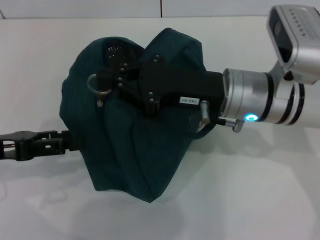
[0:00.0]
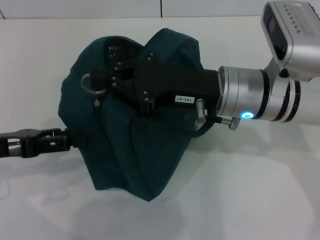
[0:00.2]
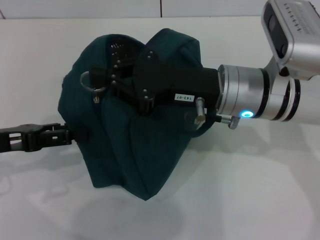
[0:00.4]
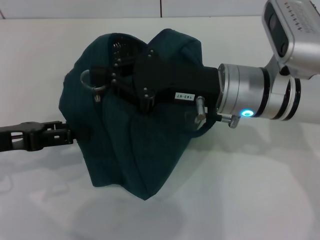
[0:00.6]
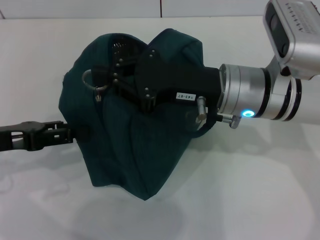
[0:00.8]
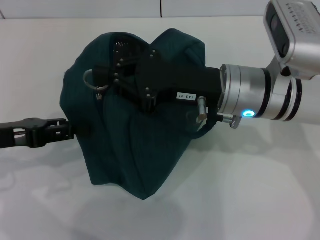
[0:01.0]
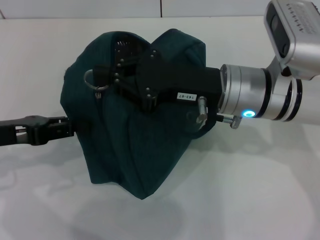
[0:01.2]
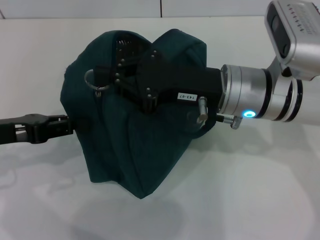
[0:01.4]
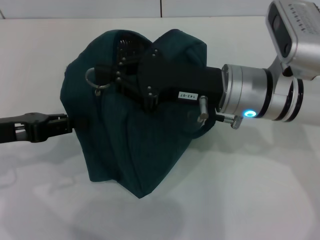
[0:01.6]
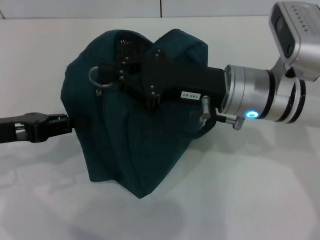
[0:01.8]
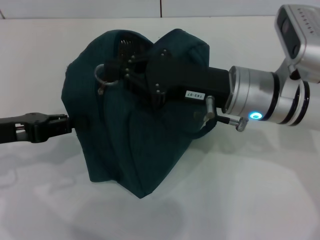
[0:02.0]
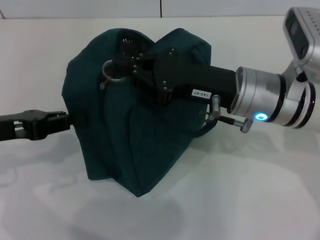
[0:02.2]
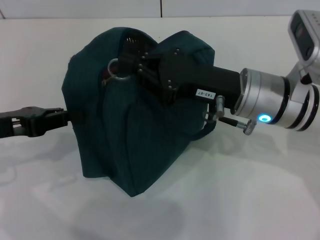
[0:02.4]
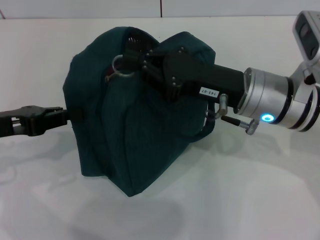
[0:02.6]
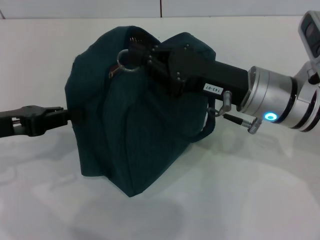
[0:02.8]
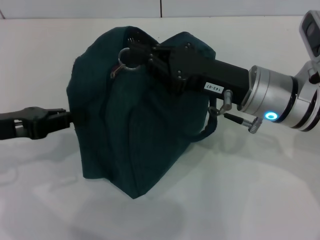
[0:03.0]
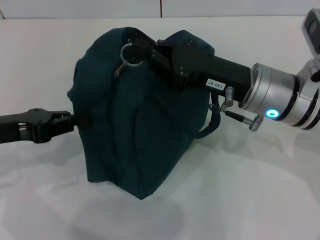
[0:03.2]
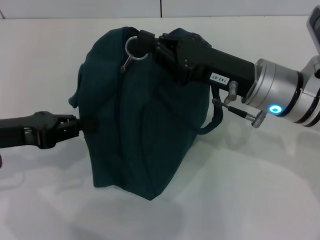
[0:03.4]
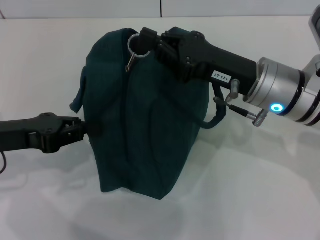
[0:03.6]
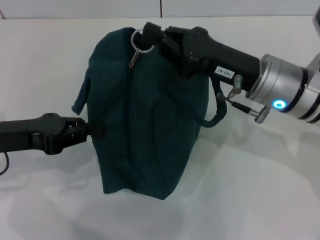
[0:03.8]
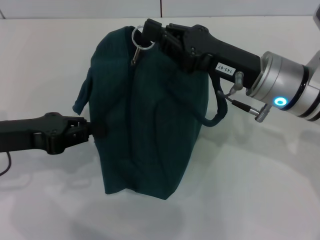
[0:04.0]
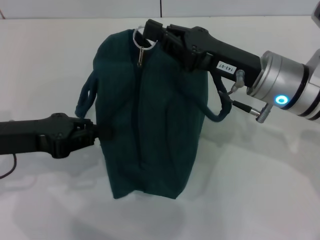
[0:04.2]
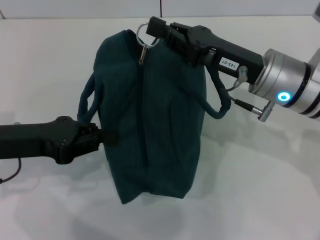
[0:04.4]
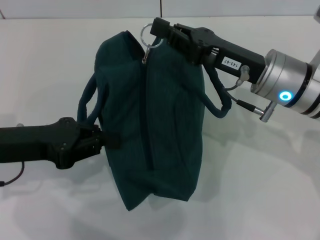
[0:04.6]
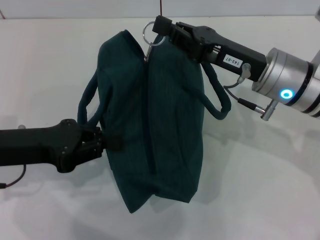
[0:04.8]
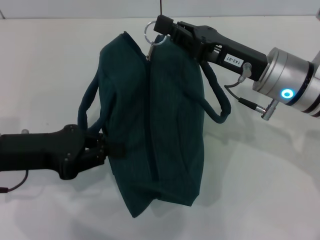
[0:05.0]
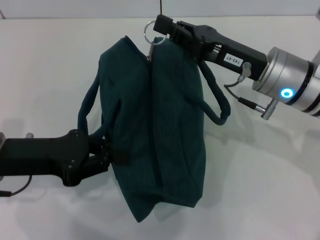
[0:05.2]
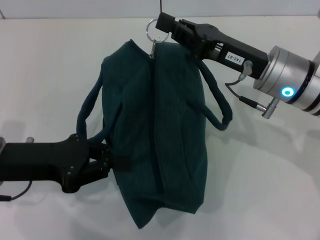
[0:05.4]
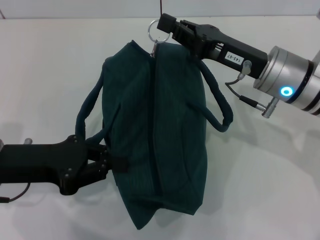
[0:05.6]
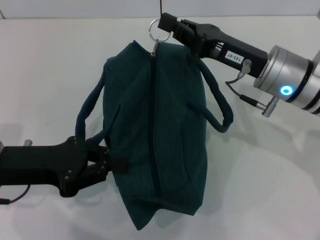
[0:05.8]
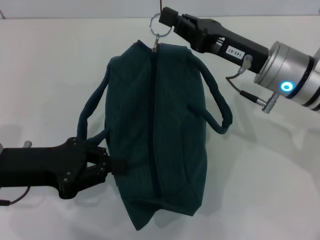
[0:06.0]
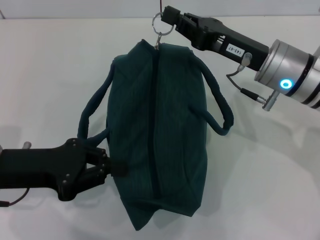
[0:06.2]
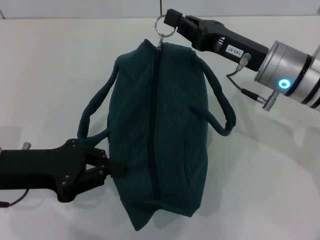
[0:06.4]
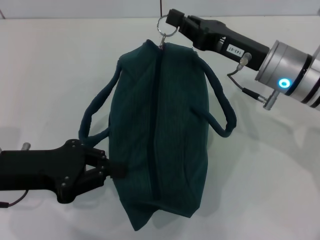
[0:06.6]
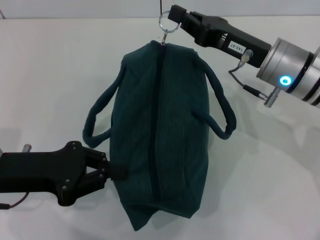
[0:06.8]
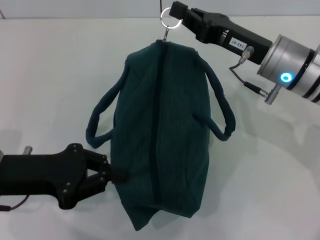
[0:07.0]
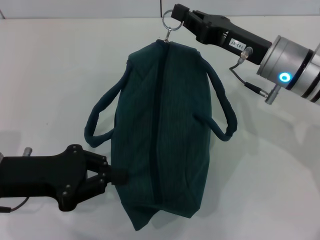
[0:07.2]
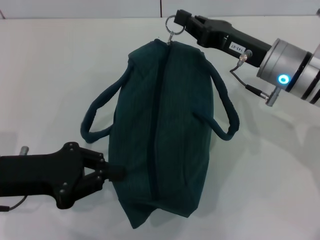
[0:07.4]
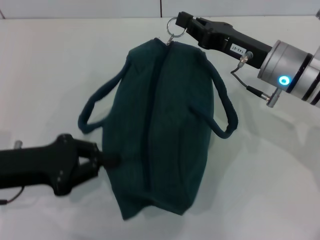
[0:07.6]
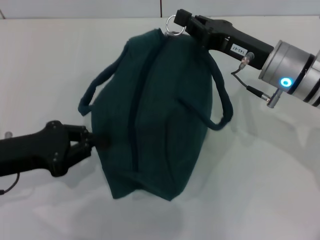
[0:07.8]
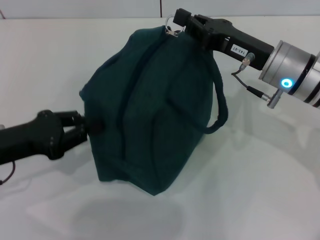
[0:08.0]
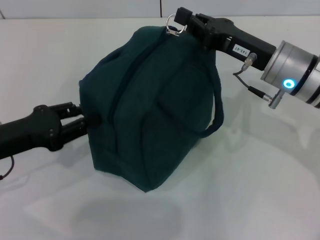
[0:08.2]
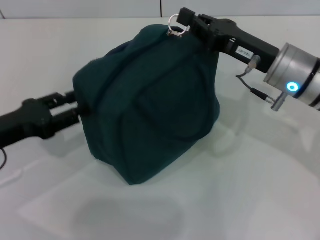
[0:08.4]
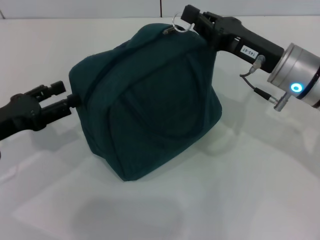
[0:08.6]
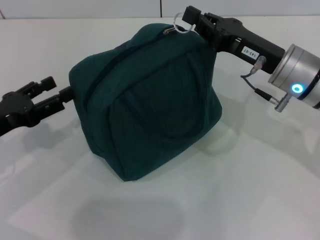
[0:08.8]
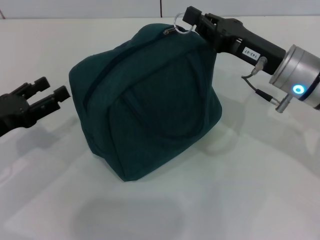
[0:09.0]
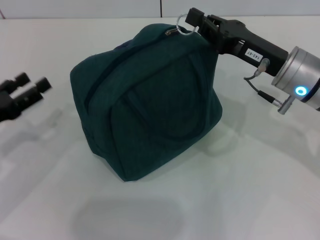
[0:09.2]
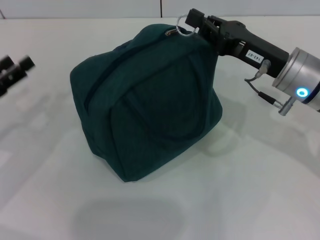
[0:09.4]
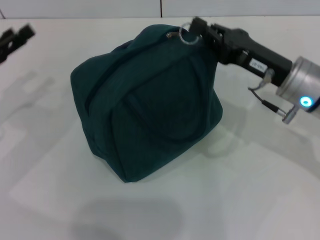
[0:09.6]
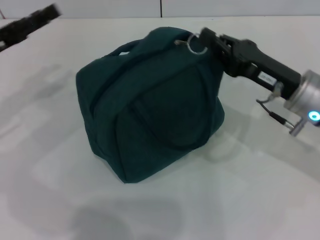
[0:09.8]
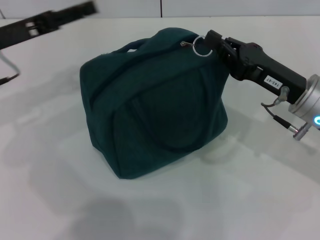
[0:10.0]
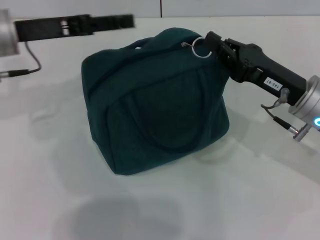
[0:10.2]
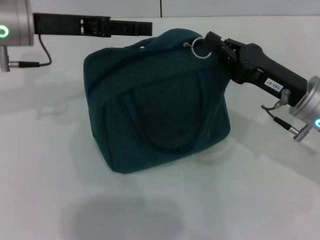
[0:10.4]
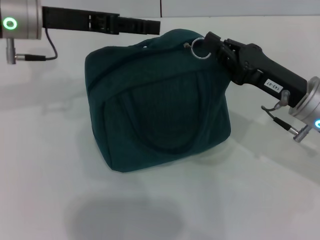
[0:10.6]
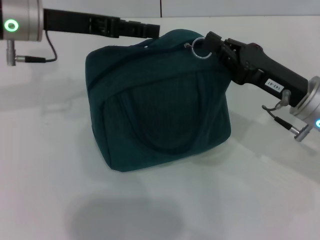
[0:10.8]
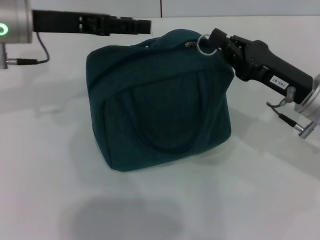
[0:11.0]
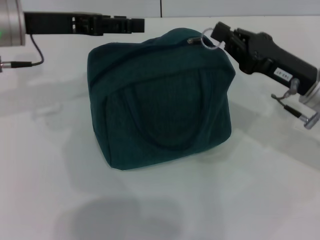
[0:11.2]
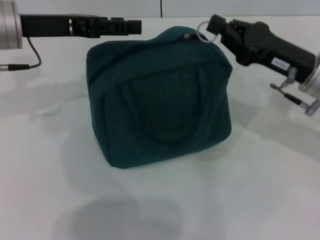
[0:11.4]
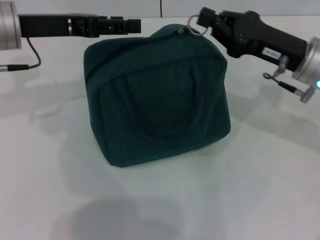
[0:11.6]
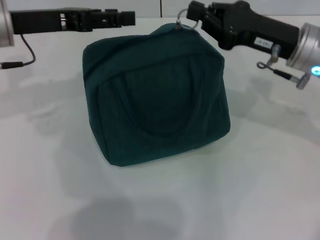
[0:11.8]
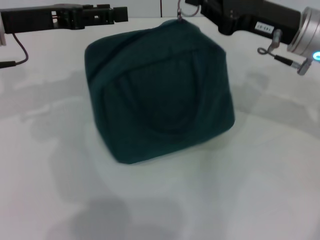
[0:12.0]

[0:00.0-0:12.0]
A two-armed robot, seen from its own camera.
0:00.0 to 0:01.6: The left gripper closes.
0:01.6 to 0:03.0: There are only small adjustments of the grippers.
0:06.0 to 0:07.6: The grippers stay close to where they were, moving slightly.
0:07.6 to 0:09.0: The left gripper changes place by approximately 5 cm, and opens its fingers.
0:09.0 to 0:10.4: The left gripper shifts approximately 20 cm forward, upward and to the right.
0:10.4 to 0:12.0: The right gripper travels forward and upward by approximately 10 cm.

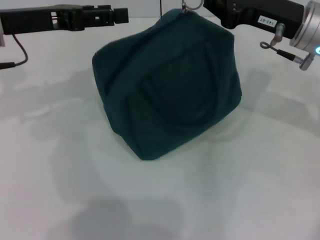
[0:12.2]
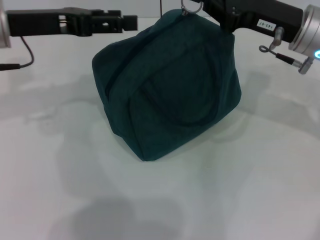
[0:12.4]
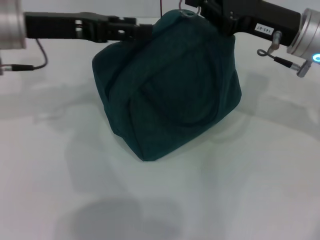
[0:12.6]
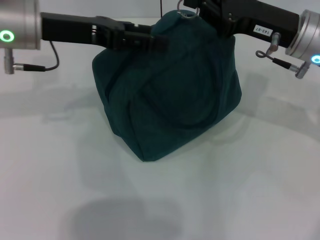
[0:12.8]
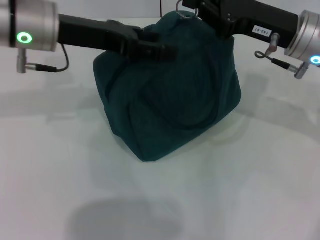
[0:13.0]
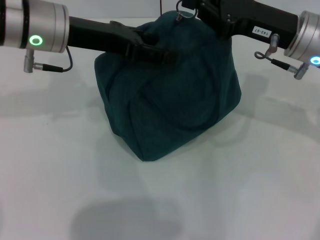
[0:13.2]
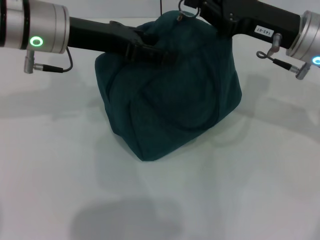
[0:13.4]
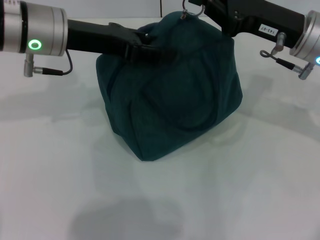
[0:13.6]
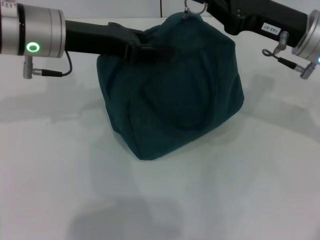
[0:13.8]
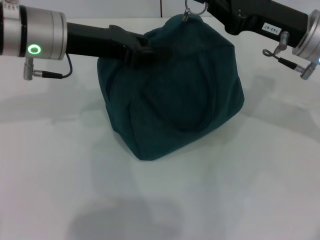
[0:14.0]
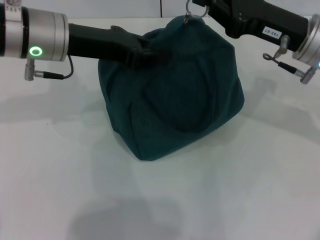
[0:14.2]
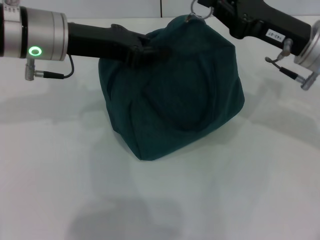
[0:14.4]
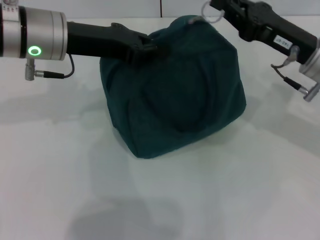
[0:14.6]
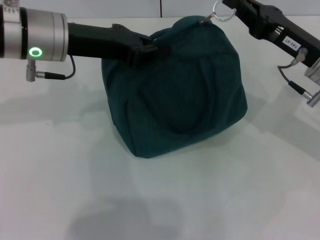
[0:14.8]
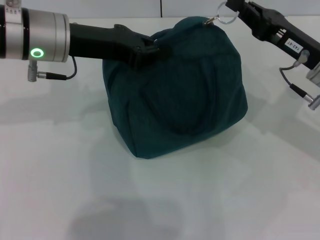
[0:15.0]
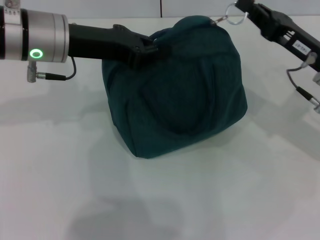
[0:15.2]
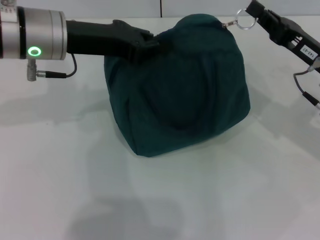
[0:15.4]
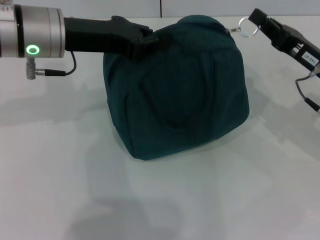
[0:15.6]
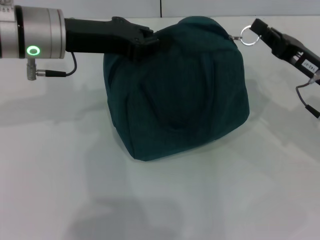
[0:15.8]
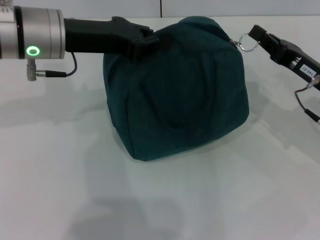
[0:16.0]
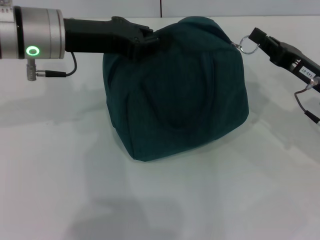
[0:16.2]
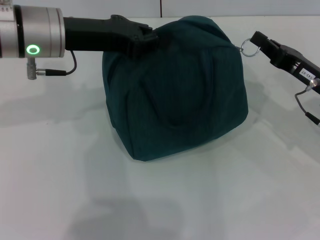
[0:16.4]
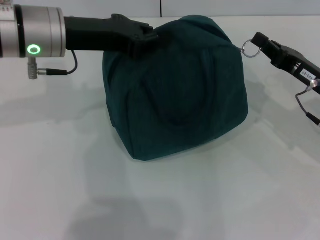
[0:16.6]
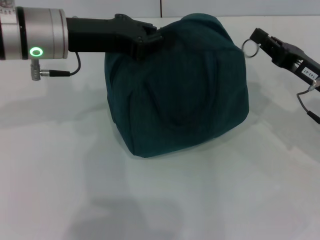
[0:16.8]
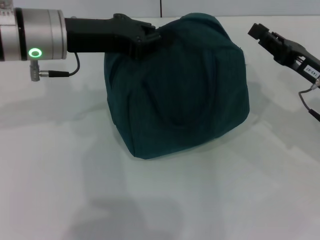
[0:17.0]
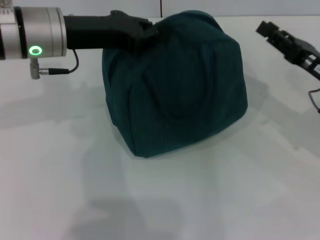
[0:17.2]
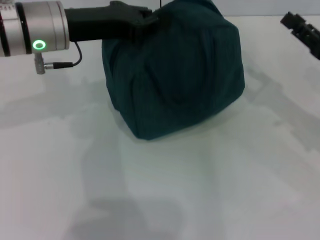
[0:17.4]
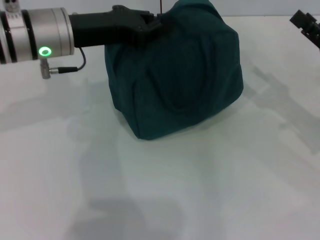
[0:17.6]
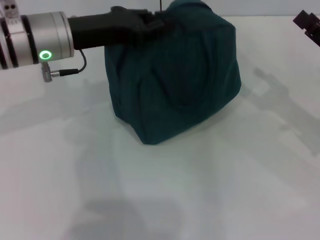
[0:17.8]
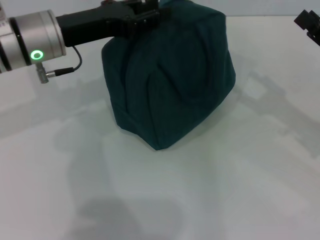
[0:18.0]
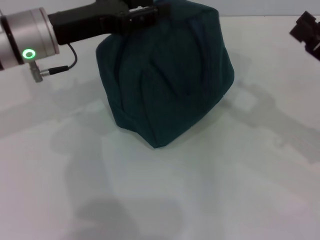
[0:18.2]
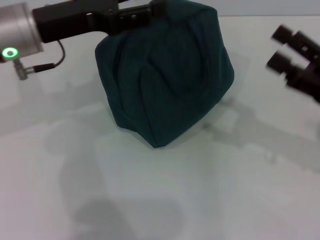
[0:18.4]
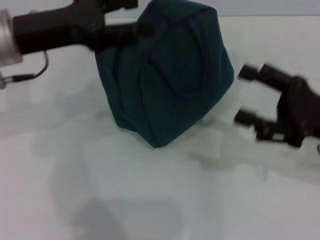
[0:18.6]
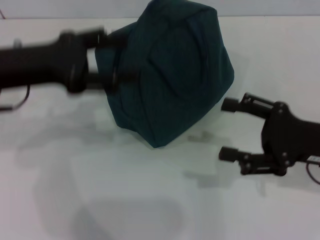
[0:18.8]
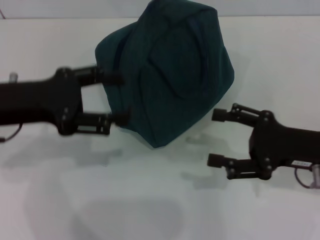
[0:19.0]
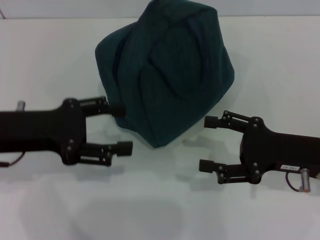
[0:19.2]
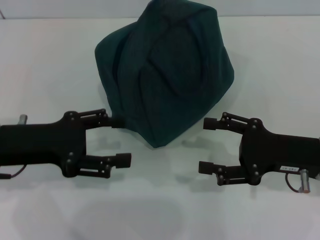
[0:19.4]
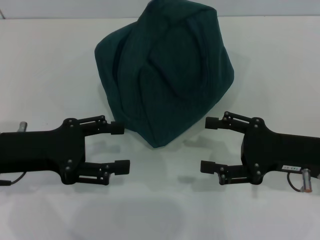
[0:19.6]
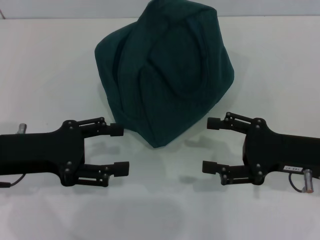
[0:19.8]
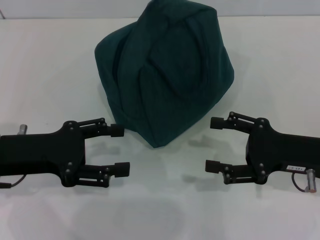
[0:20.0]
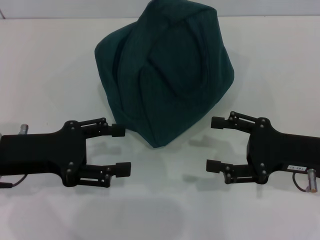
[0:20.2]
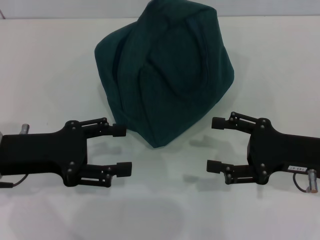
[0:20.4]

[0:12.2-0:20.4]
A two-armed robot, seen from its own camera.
Step, 0:12.2 to 0:16.8: Zip up the lunch bag with your right hand.
Step, 0:17.0 to 0:18.2: Hold the lunch bag with your left hand.
0:12.2 to 0:13.8: The left gripper shifts approximately 5 cm to the right.
0:13.8 to 0:15.4: The right gripper moves downward, about 5 cm, while the left gripper closes up.
0:15.4 to 0:17.2: The grippers move only a little.
0:17.2 to 0:18.8: The right gripper heads backward, covering roughly 5 cm, and opens its fingers. Meanwhile the left gripper moves to the left and backward, roughly 10 cm, and opens its fingers.
0:18.8 to 0:20.4: The left gripper travels downward and backward by approximately 10 cm.
